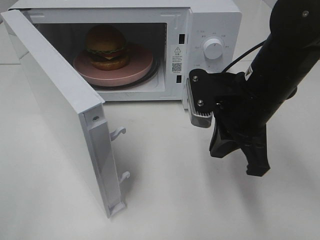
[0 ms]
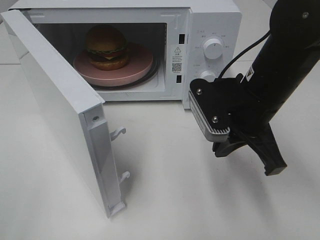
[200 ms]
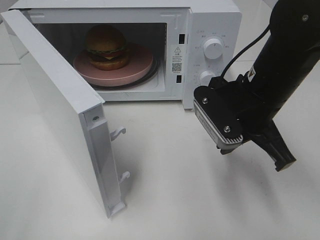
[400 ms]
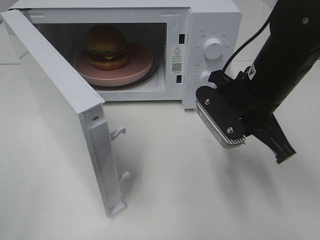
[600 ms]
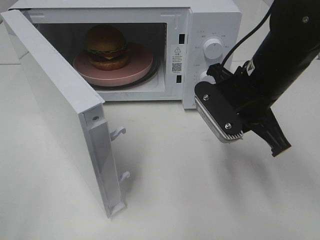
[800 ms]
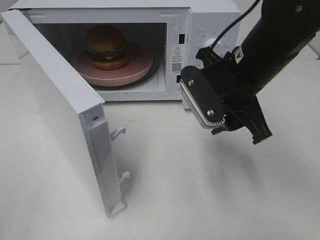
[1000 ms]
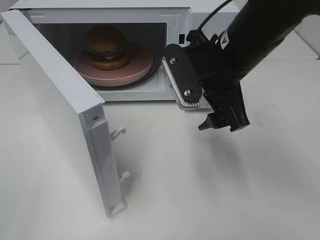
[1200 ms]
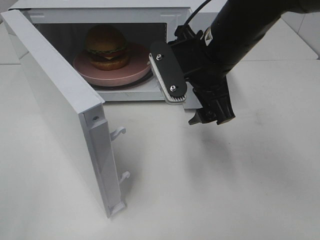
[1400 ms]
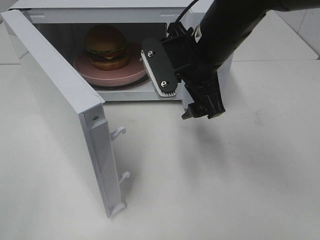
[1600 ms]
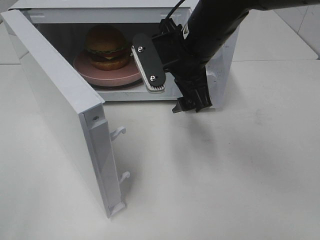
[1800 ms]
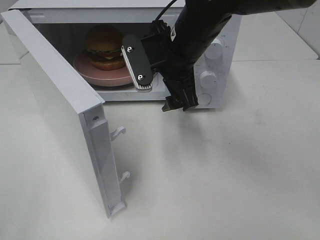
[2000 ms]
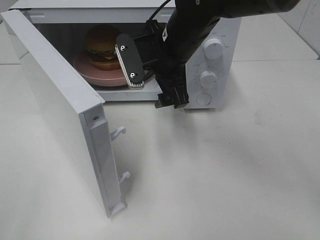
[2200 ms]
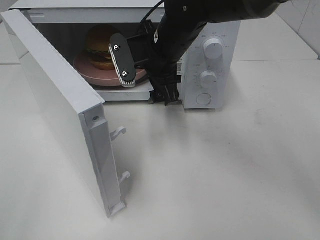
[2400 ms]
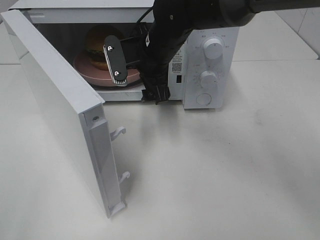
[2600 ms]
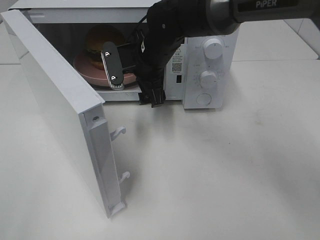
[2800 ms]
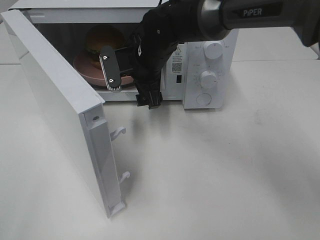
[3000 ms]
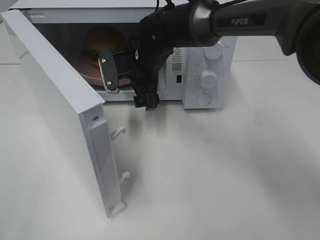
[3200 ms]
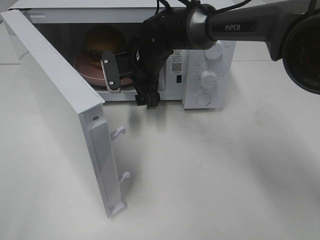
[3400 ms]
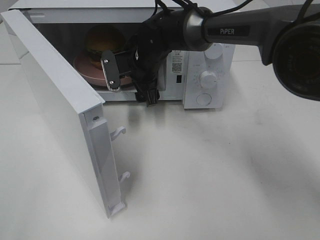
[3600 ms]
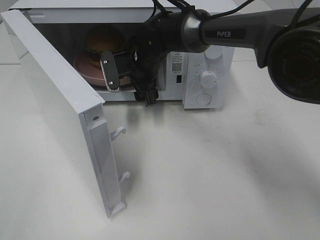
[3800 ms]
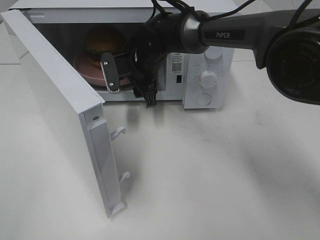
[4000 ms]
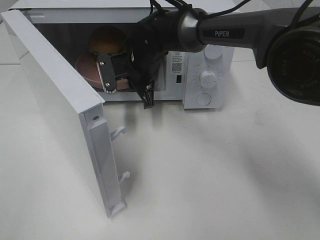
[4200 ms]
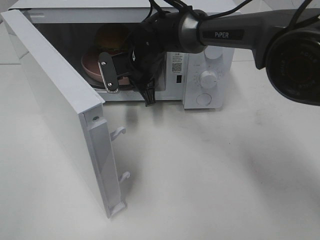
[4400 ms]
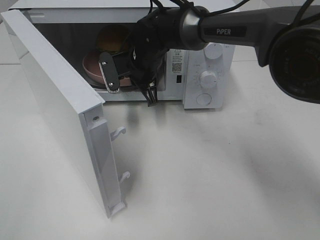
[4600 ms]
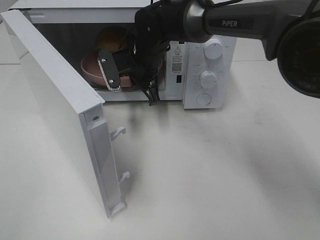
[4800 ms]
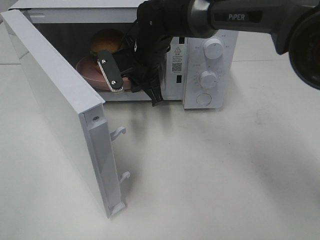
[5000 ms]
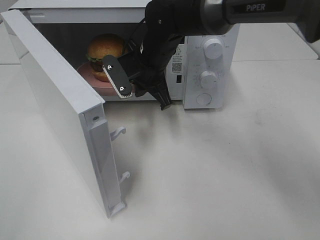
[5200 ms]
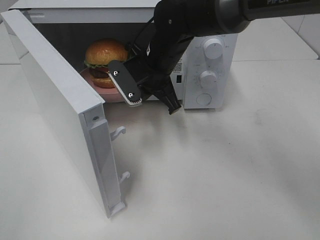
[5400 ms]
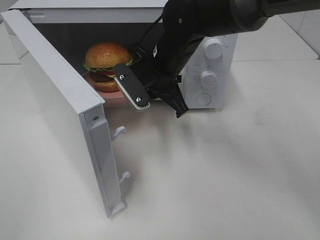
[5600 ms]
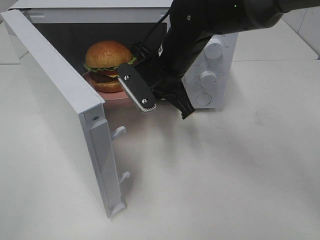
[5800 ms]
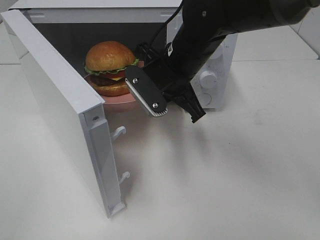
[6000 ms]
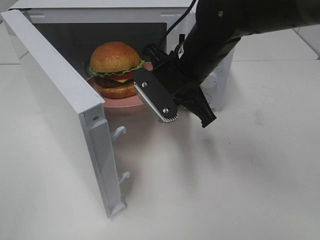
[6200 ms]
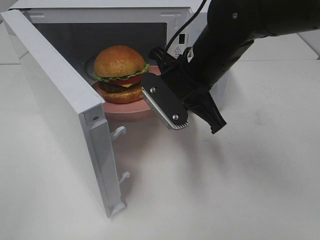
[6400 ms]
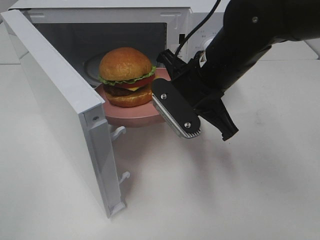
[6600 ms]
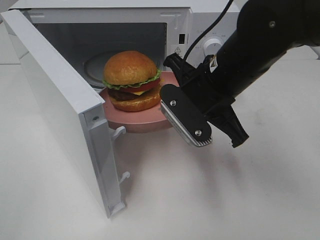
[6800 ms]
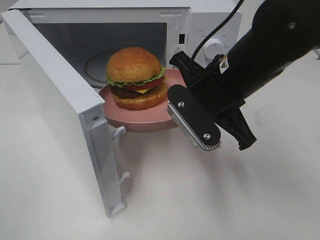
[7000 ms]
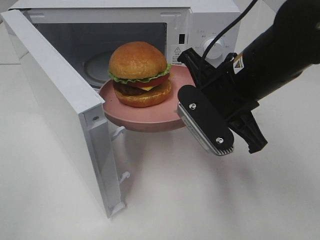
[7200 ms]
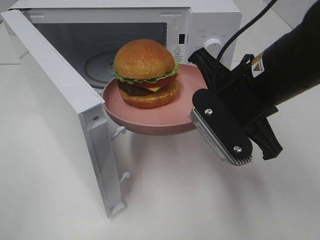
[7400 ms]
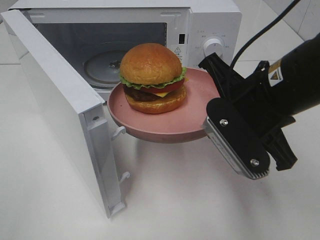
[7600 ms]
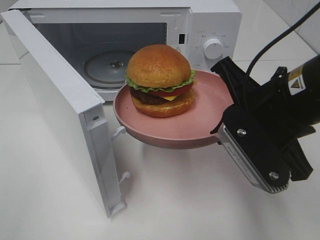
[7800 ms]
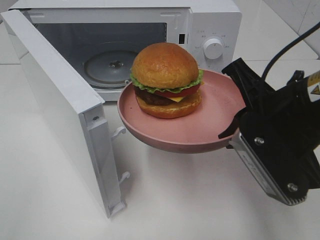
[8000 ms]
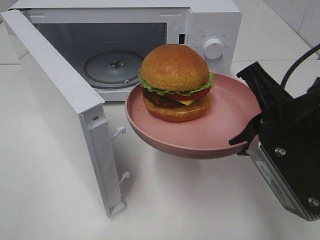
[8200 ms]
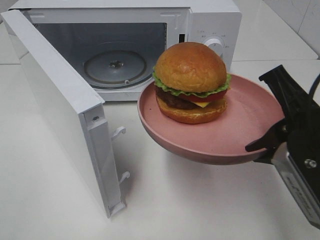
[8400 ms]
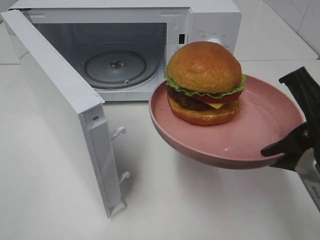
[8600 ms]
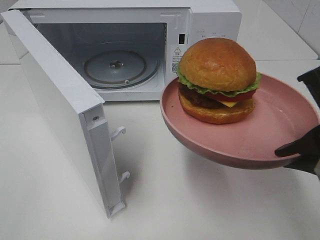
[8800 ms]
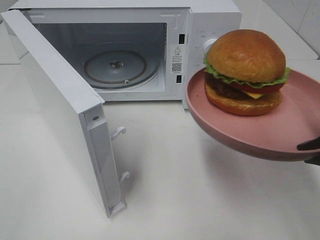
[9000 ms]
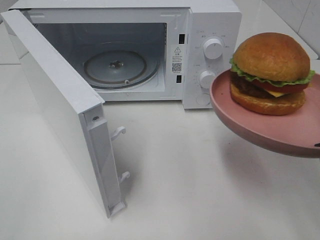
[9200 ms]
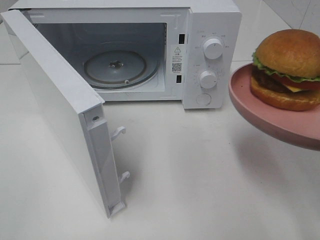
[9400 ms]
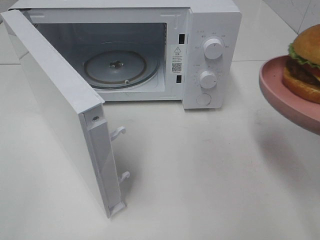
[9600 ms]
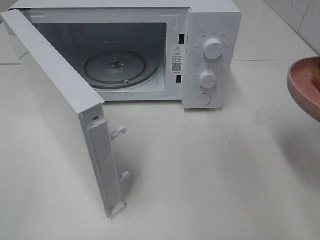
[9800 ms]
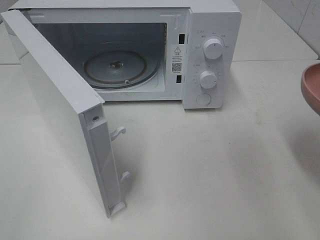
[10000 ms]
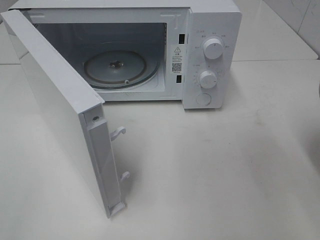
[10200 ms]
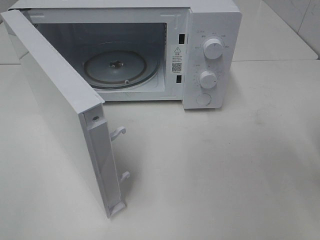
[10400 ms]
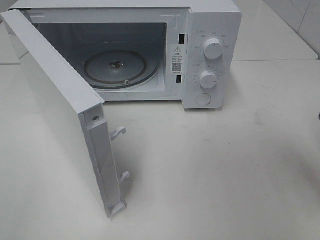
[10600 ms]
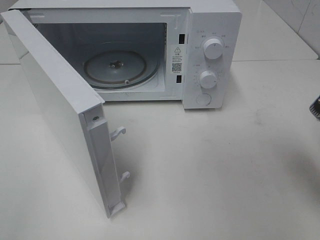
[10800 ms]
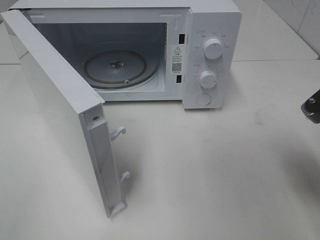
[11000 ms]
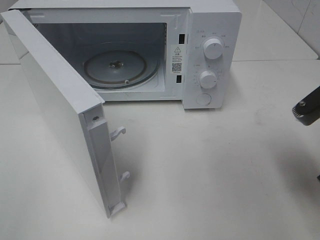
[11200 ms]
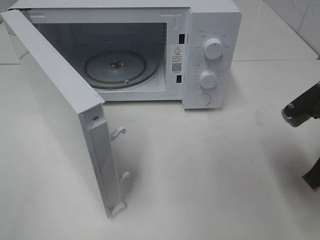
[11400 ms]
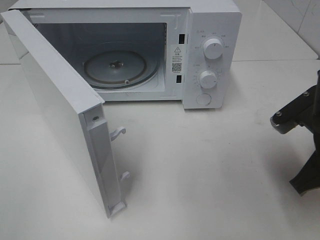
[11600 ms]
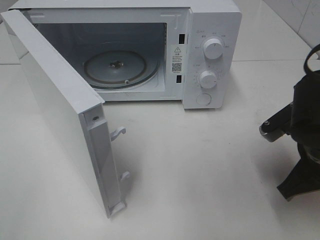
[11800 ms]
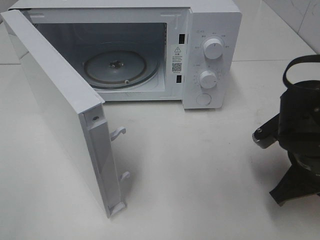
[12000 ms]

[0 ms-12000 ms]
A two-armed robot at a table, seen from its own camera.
Task of the whole recording: Heat the burger.
Step, 0 ms to 4200 ms: Right hand: grab the plate with the hamburger.
0 ms to 1600 ms: The right gripper heads to the left and forward, covering approximately 10 cm, and opens.
1600 ms to 3000 ms: The right gripper heads forward, to the left and downward, covering about 15 cm.
3000 ms to 4400 ms: The right gripper closes up.
4400 ms to 6000 ms: The right gripper is displaced backward, upward and to the right by some 15 cm.
6000 ms to 7600 ms: The right gripper shifts some 15 cm backward and to the right.
7600 ms to 9000 ms: The right gripper goes about 15 cm backward and to the right.
10400 ms to 12000 ms: The right gripper travels downward, forward and to the left by about 15 cm.

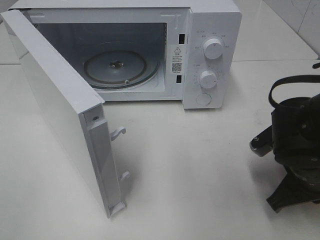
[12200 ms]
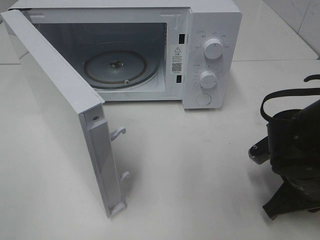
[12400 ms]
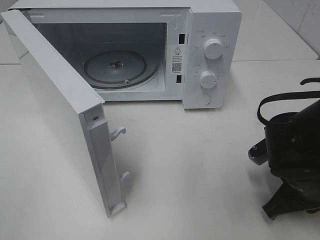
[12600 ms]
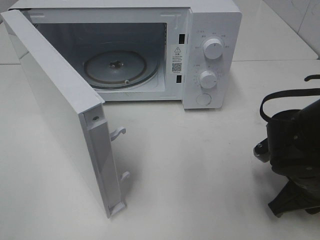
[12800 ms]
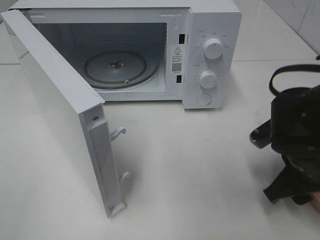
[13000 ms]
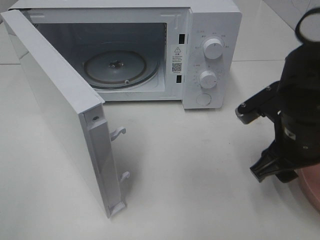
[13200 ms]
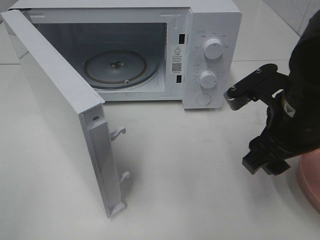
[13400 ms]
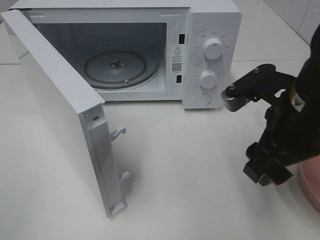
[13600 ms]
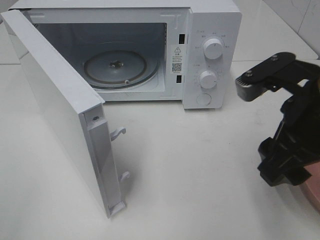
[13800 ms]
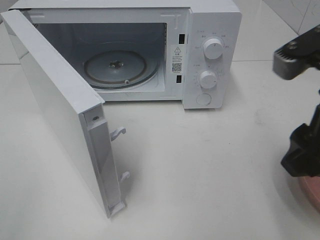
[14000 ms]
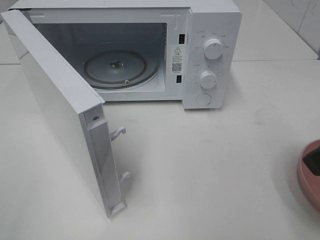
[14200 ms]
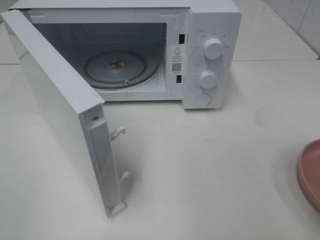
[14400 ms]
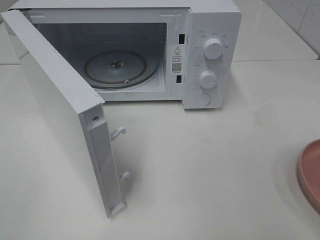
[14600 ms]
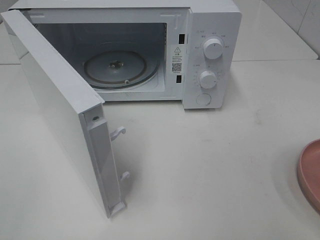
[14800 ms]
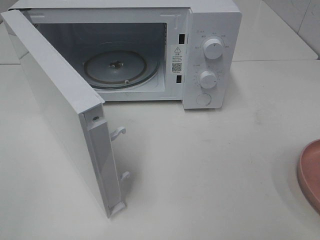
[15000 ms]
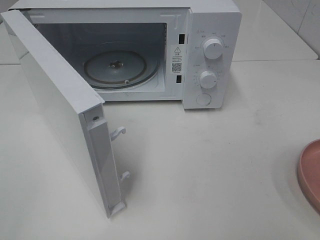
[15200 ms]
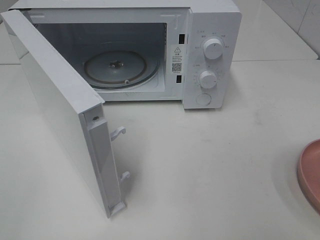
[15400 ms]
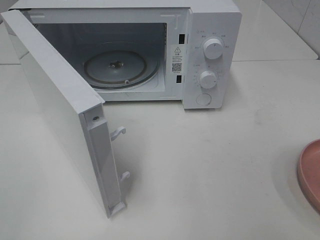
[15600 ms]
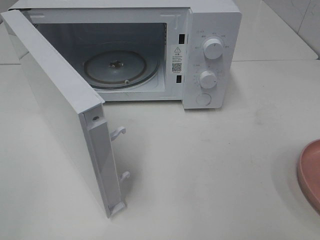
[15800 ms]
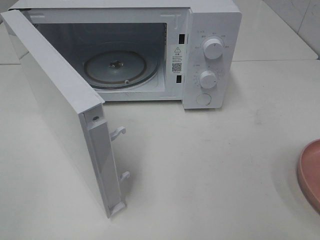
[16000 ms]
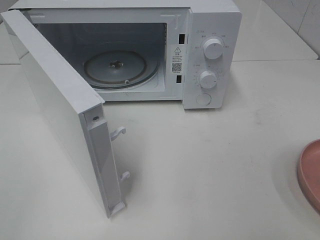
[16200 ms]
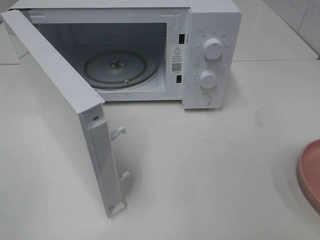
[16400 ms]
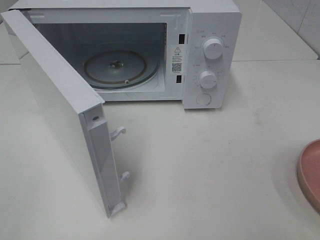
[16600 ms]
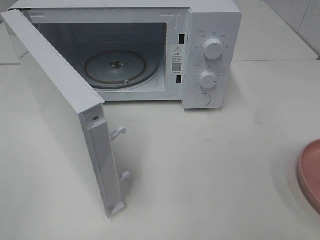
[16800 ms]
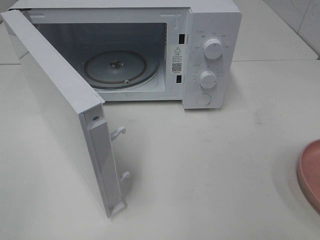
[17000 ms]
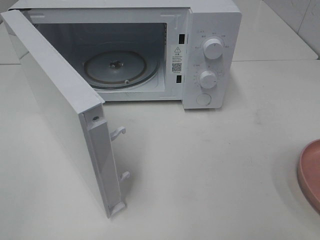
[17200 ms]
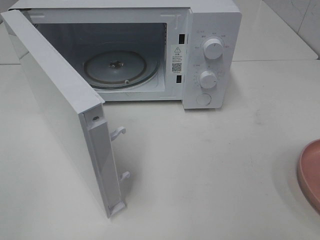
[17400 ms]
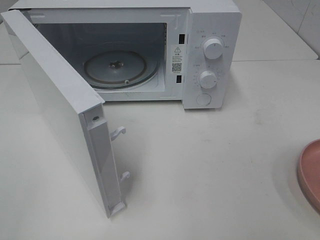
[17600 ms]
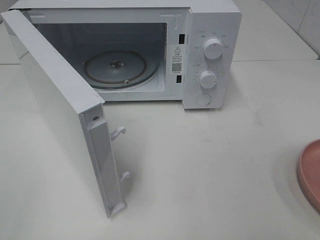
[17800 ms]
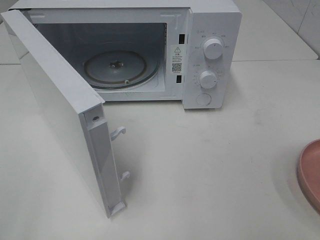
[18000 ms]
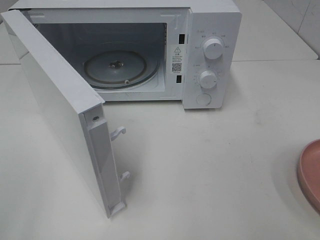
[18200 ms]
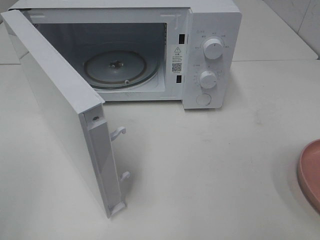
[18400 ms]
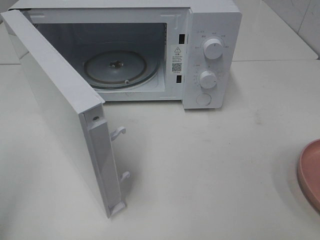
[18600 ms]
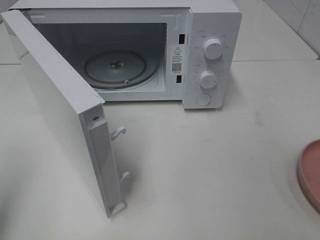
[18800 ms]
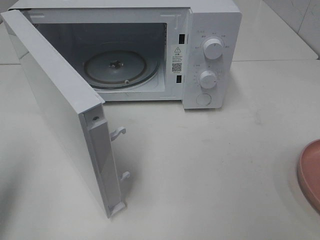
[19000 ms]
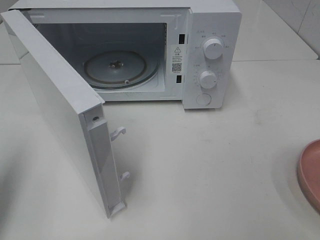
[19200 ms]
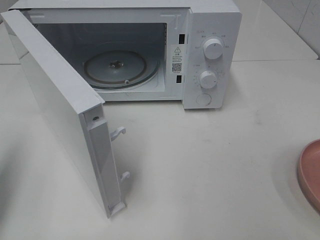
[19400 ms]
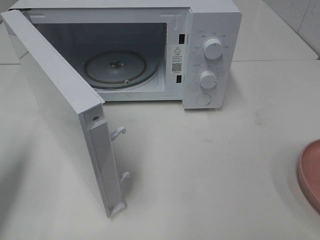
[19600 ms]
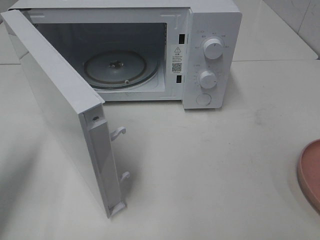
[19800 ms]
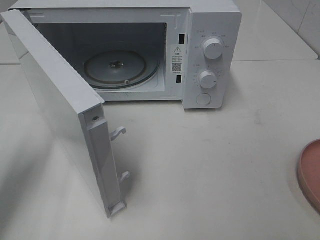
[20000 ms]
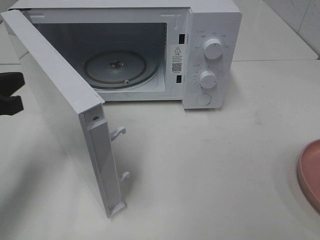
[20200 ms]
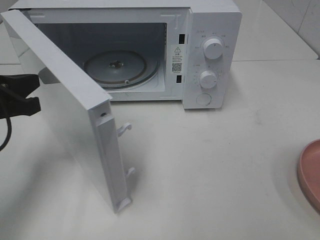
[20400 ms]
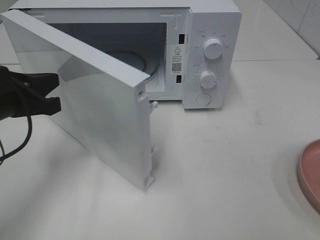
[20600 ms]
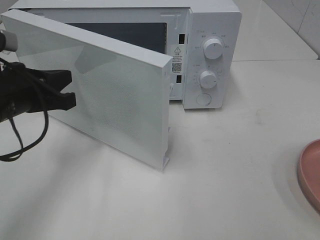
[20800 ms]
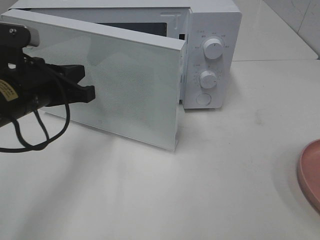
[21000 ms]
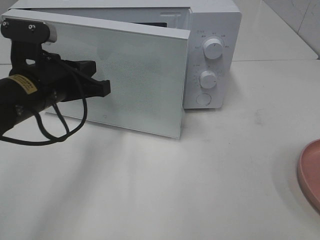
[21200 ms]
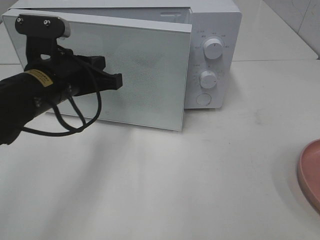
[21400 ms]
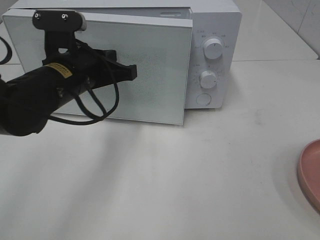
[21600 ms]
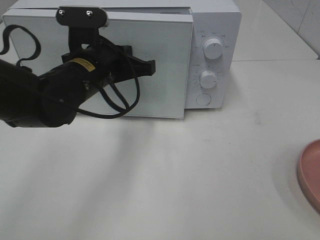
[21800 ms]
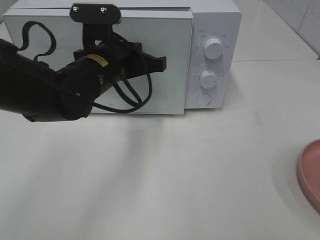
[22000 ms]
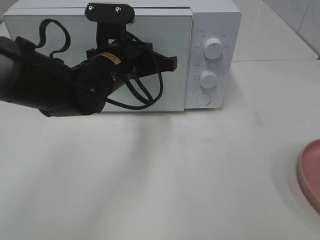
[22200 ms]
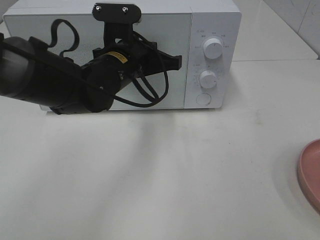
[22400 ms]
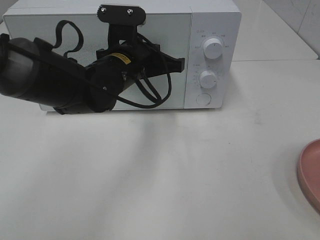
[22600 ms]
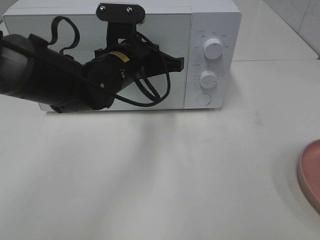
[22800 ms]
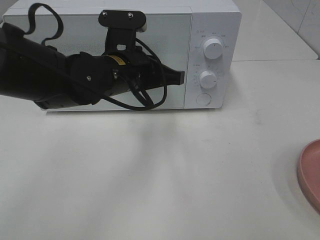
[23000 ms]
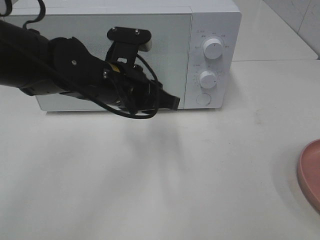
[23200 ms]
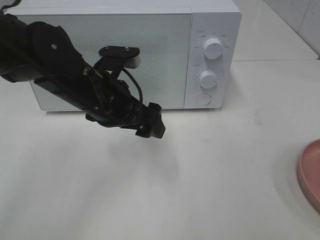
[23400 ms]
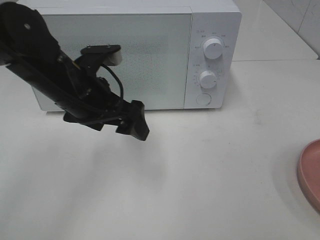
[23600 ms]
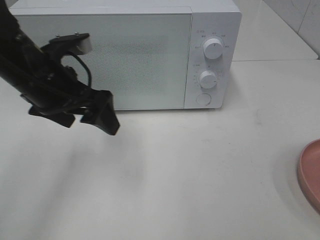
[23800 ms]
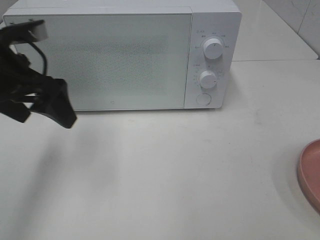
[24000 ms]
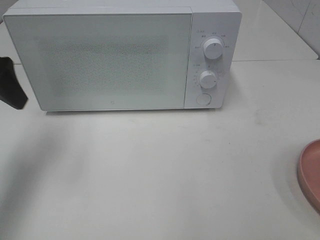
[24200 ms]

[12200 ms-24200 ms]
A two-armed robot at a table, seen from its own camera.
Task of the whole recording: Heat the burger.
Step, 13200 ms to 23000 ms: Left hand: close the microwave door.
12200 ms to 13800 ms: The right gripper is displaced upward by some 15 cm, and opens.
13800 ms to 15200 ms: The right gripper moves backward and to the right, about 15 cm.
18200 ms to 19800 ms: The left gripper goes roughly 20 cm forward and downward, and closes.
19800 ms to 21200 ms: The left gripper goes roughly 15 cm to the right and forward.
21200 ms to 22600 ms: The left gripper shifts approximately 15 cm to the right and forward.
22600 ms to 24200 ms: The left gripper moves to the left and upward, approximately 25 cm, and opens.
